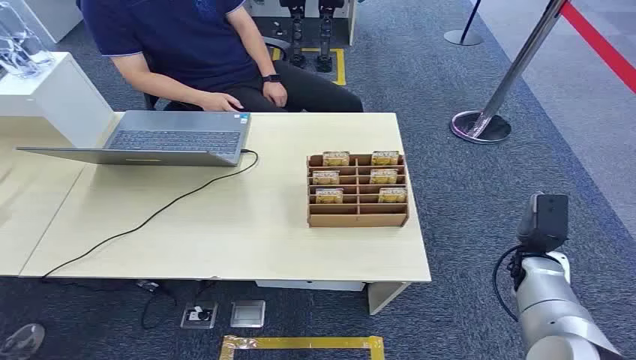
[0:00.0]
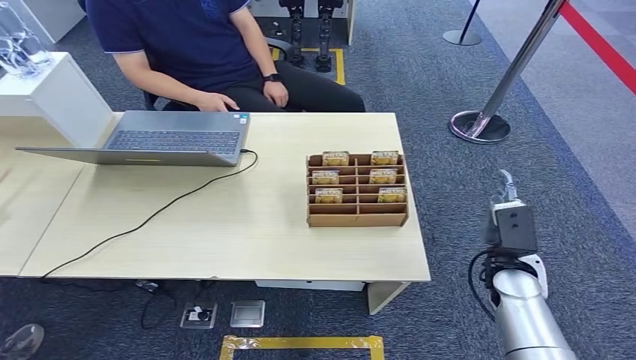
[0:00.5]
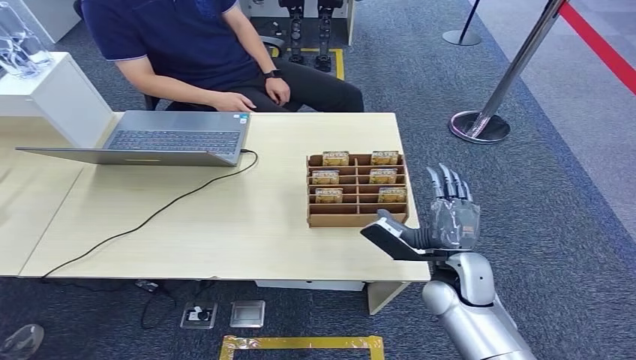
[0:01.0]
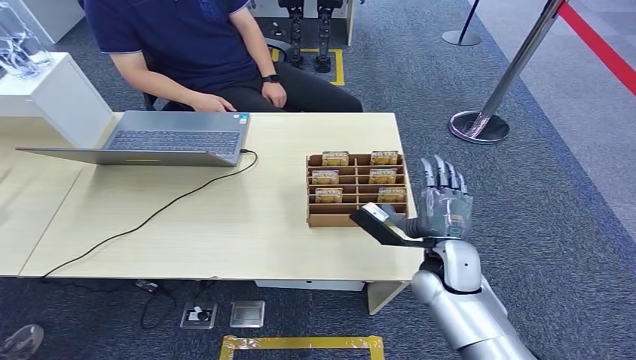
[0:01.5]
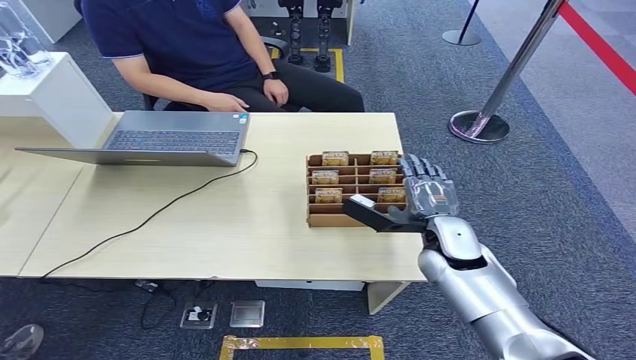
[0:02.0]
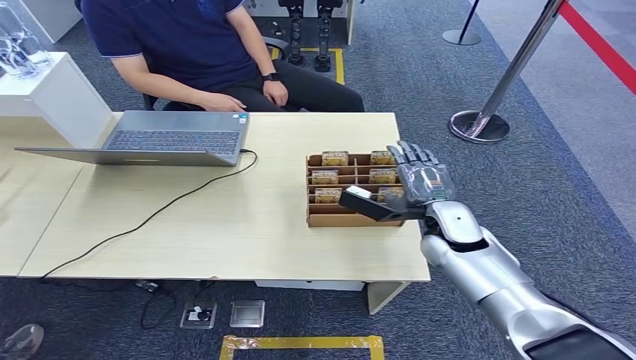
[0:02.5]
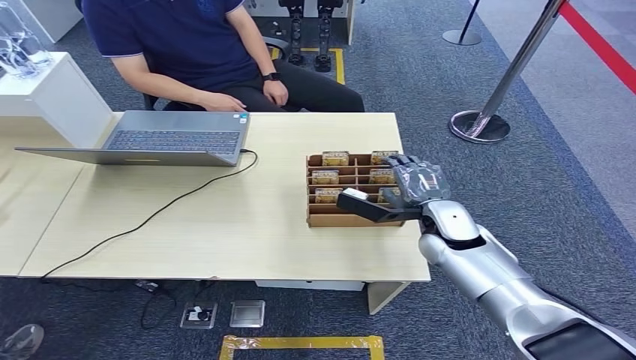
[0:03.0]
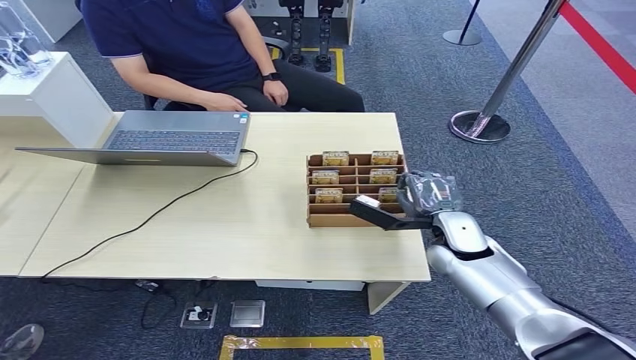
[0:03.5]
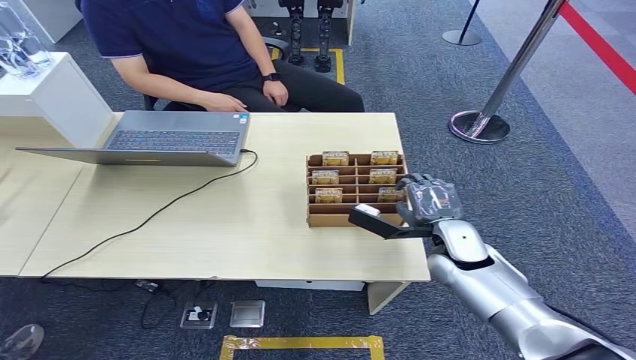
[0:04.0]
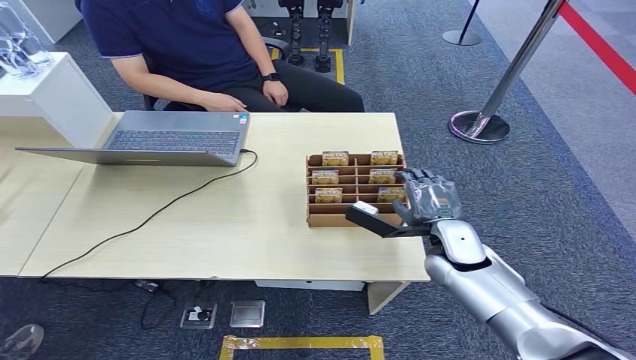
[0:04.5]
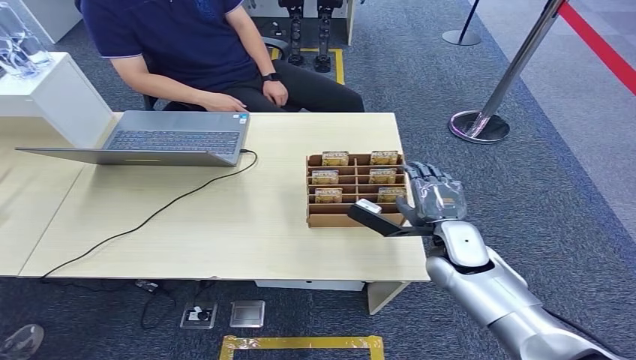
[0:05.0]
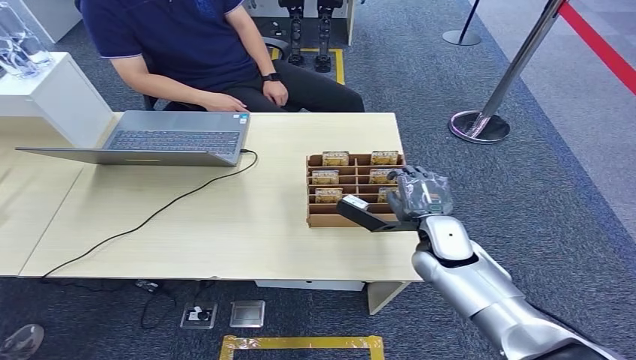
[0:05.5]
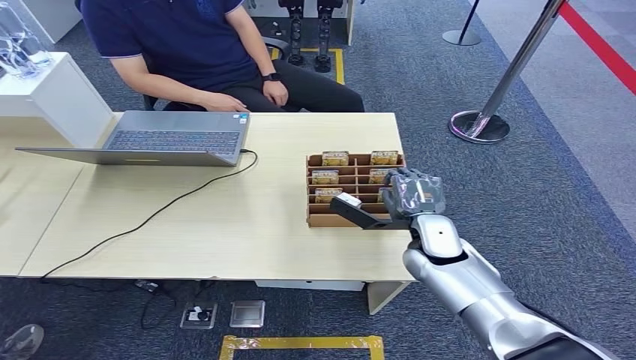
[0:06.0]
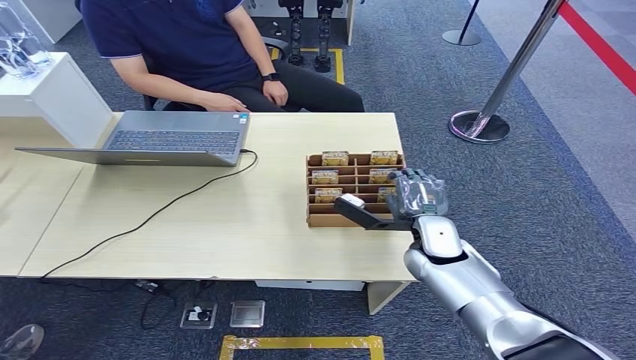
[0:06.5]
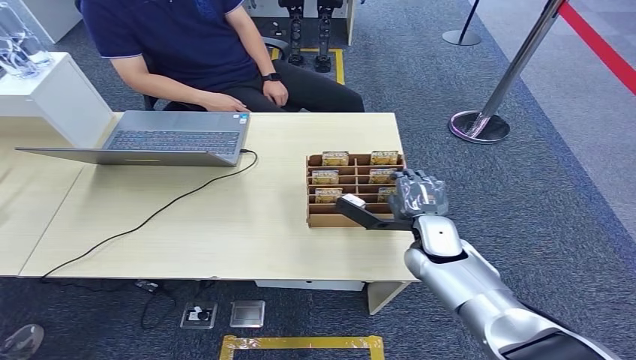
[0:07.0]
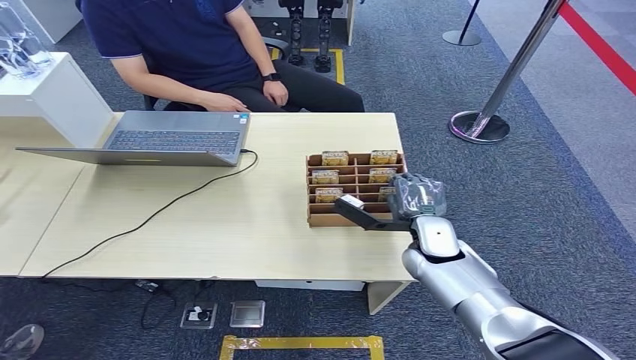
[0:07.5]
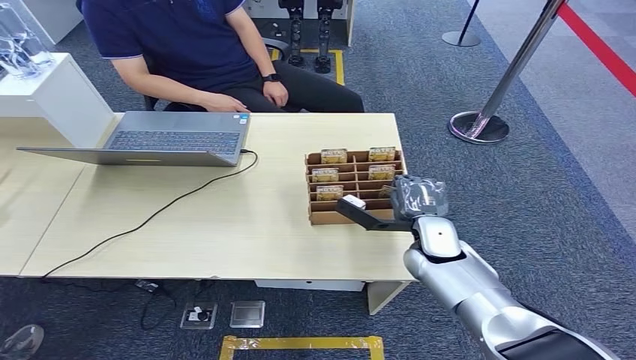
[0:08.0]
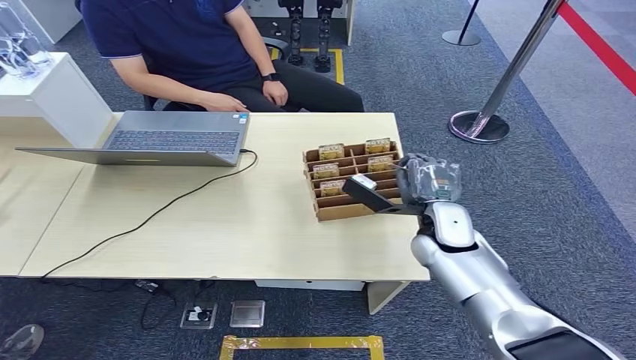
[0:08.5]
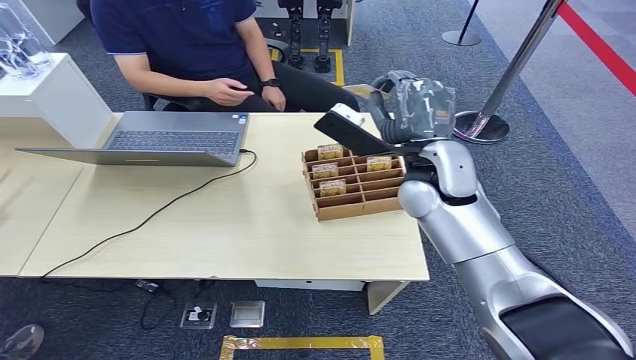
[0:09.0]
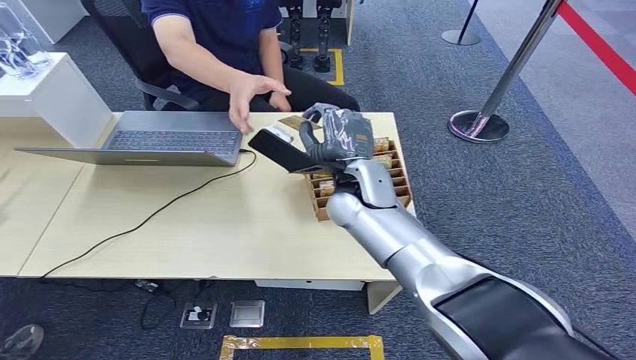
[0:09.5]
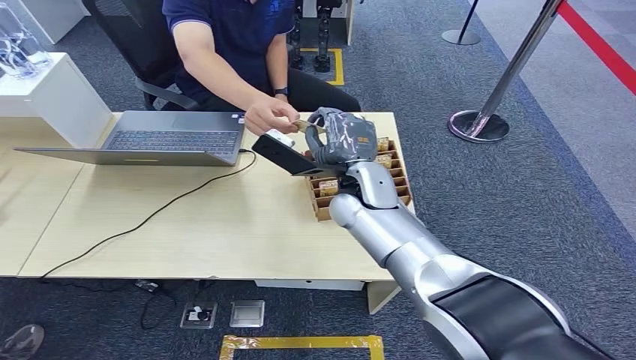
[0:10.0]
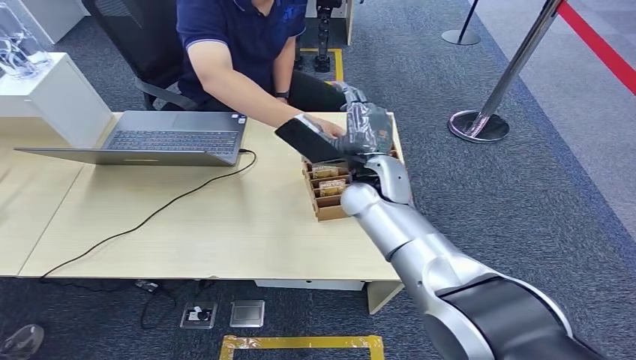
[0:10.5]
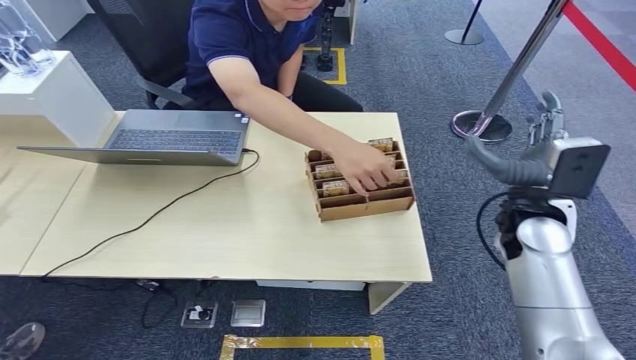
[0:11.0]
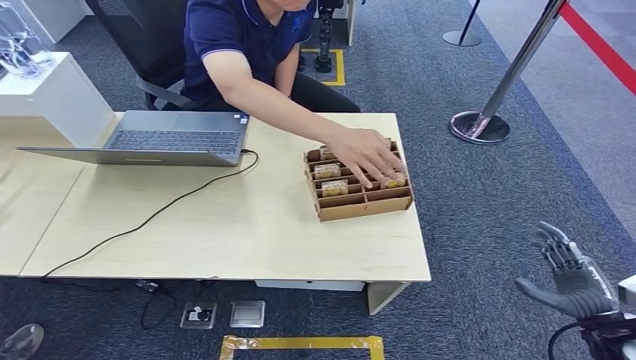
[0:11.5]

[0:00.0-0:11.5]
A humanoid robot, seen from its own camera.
Task of the whole recording: Pick up the card and hand it over to the target person.
Step, 0:00.0 to 0:08.5: Pick up the key card from the card box.
Step, 0:09.0 to 0:11.5: Hand the key card to the target.
0:02.0 to 0:07.5: There are only small adjustments of the hands.
0:07.5 to 0:09.5: The right hand is displaced to the left and upward by roughly 20 cm.
0:09.5 to 0:11.5: The right hand moves to the right, downward and backward, about 50 cm.
